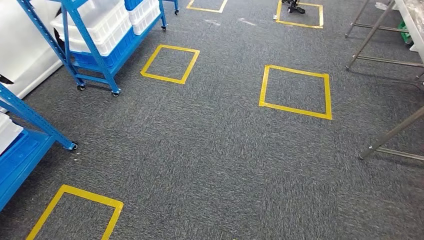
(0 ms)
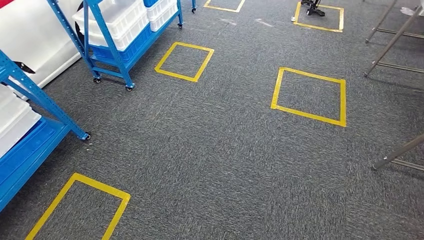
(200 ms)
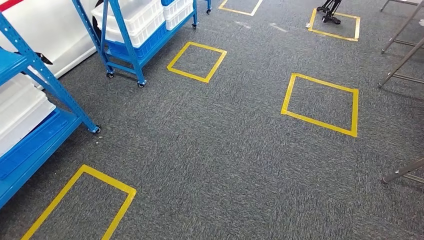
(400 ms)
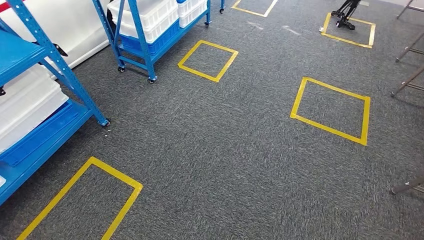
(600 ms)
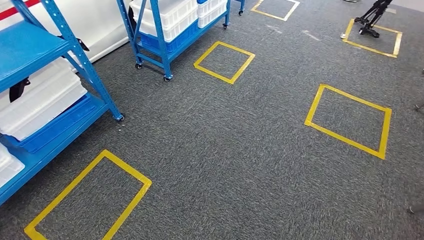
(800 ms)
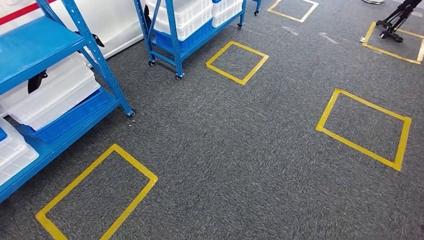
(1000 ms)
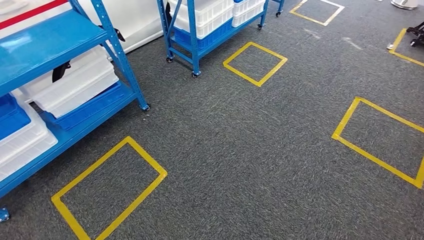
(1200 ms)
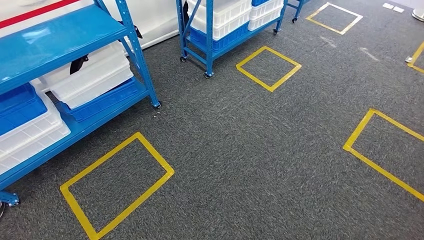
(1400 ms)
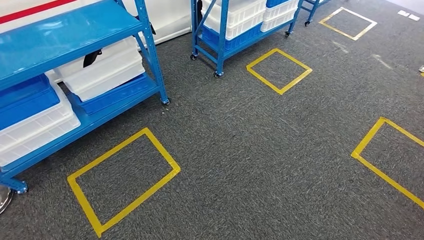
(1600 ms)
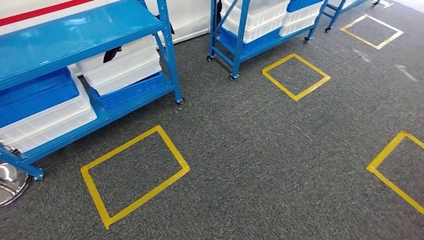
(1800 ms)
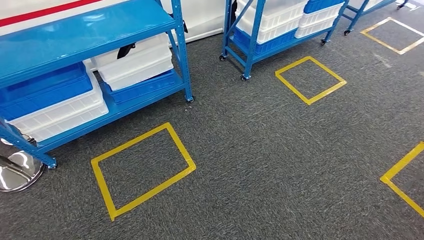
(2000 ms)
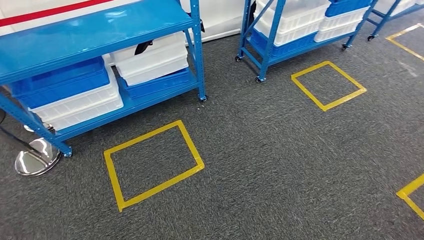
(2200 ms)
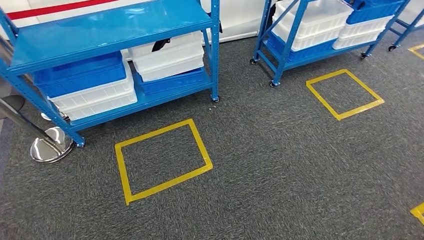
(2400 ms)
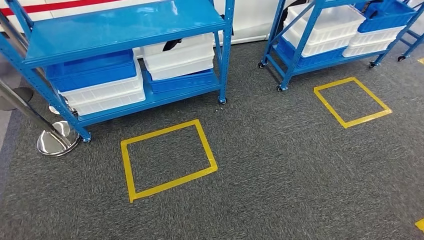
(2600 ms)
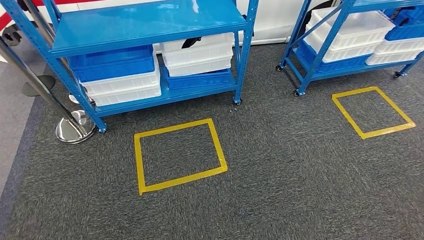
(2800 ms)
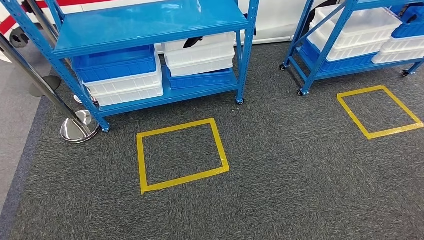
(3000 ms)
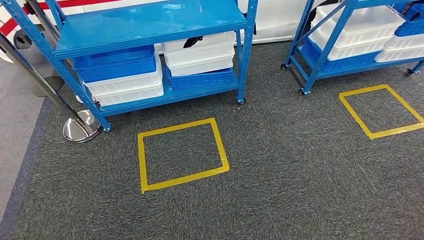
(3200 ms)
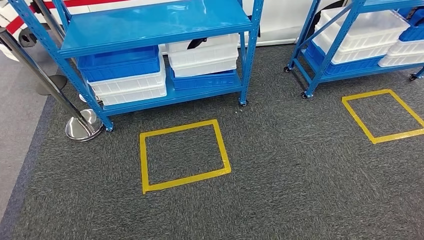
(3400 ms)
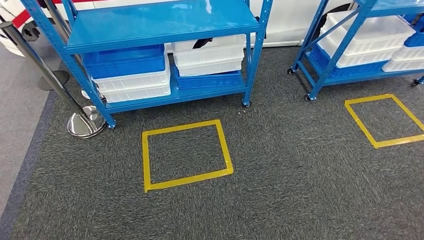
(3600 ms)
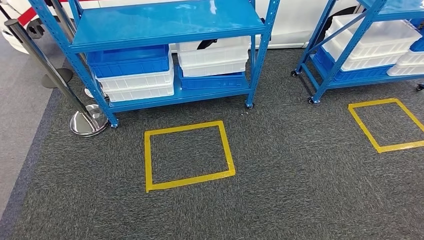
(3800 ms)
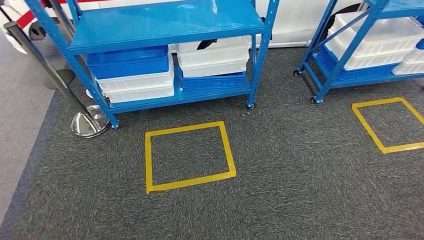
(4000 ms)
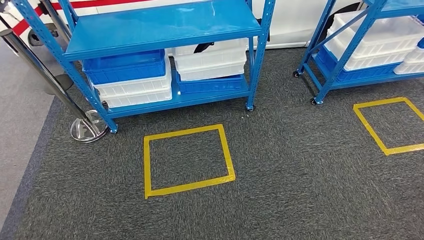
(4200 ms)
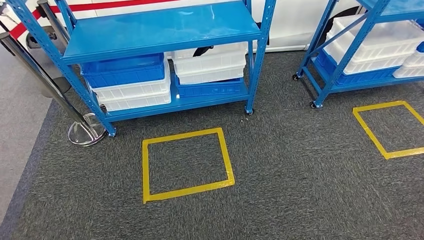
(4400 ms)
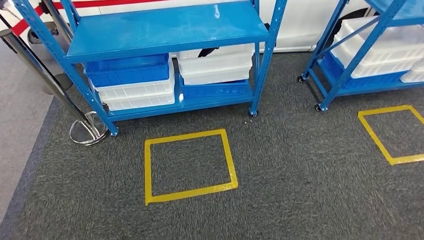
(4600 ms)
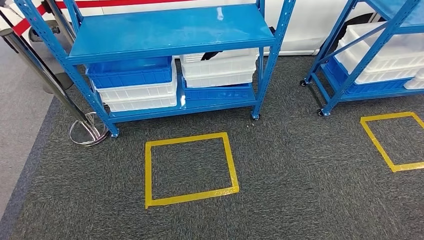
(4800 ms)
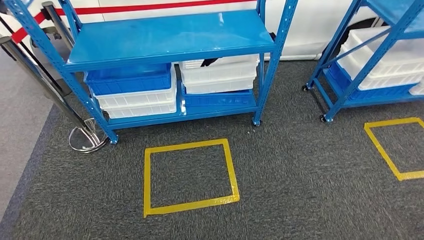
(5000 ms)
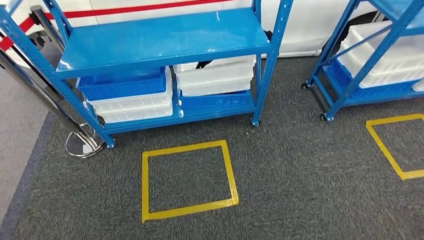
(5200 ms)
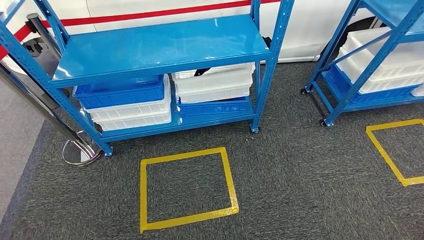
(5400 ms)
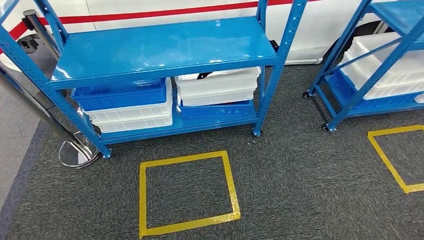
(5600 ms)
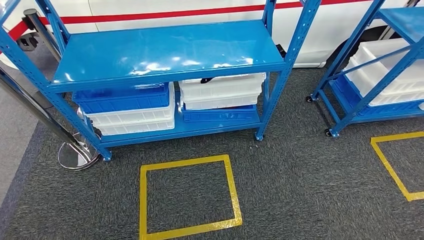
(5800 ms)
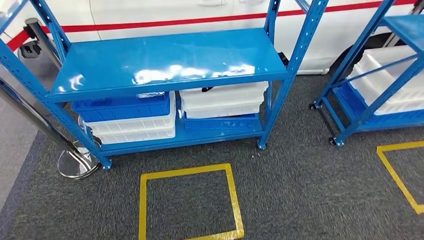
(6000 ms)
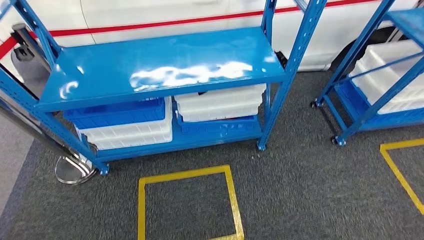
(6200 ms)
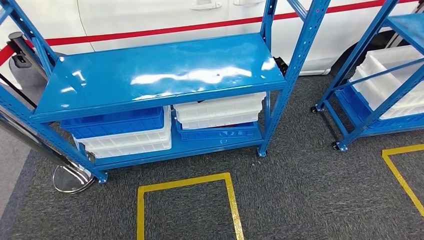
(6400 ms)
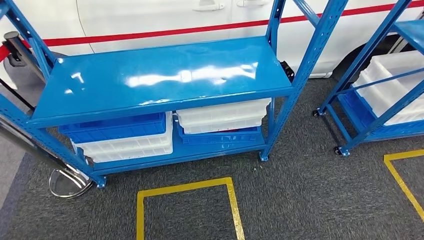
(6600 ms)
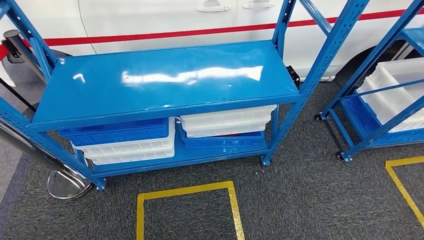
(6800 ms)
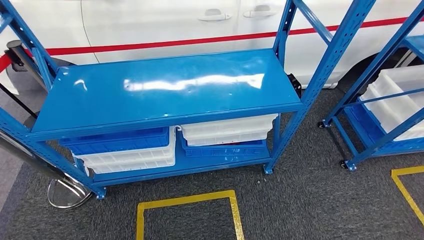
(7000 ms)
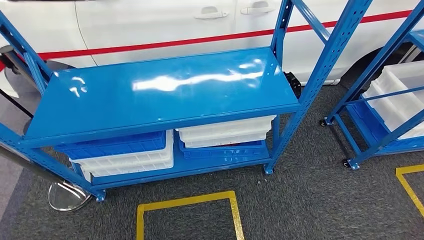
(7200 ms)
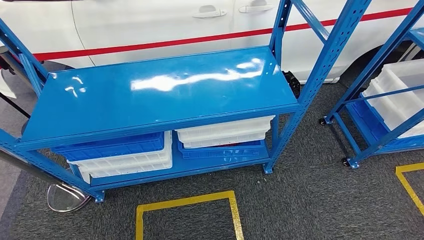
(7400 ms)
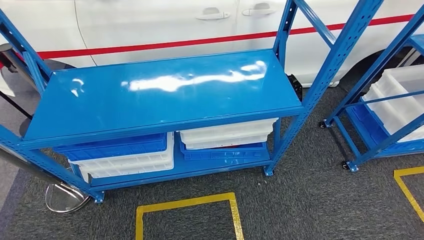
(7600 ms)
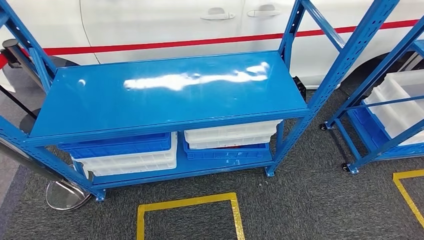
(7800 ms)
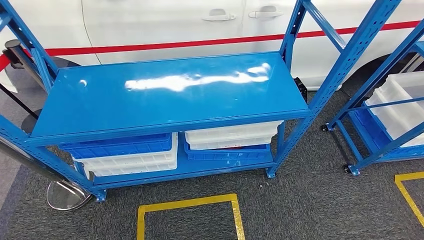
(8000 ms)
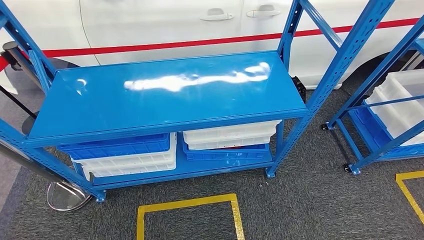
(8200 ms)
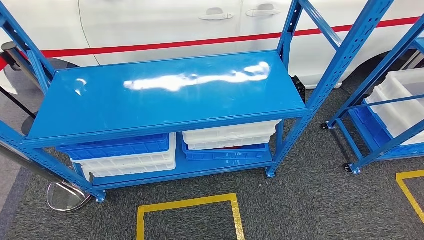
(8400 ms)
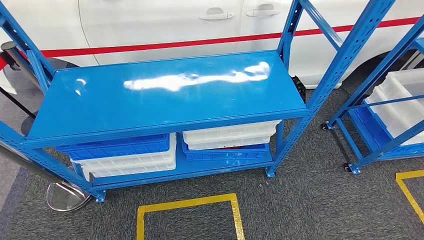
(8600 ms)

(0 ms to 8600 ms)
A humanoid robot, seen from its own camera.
Step, 0 ms - 8600 ms: Move to the initial position of the shelf.
